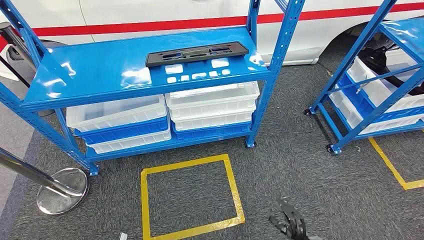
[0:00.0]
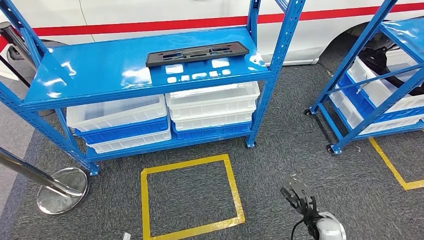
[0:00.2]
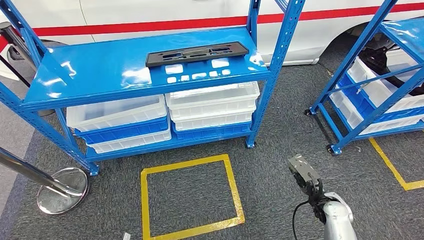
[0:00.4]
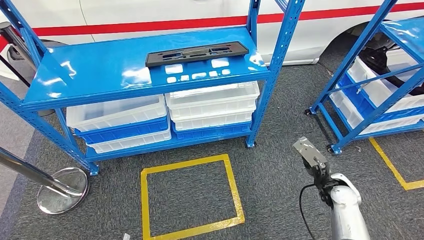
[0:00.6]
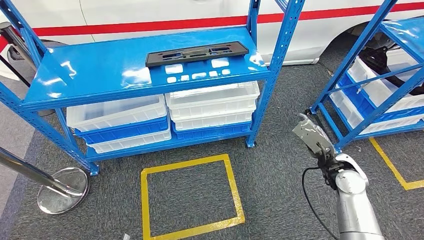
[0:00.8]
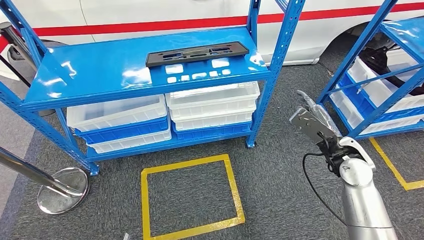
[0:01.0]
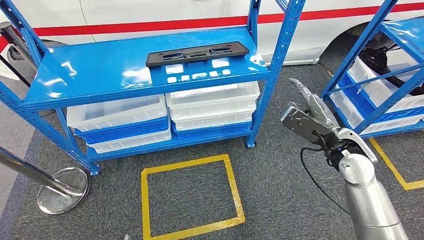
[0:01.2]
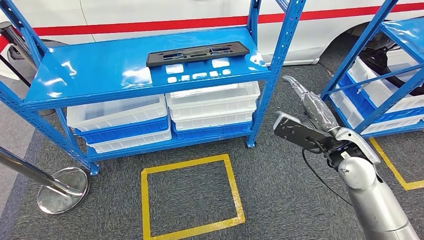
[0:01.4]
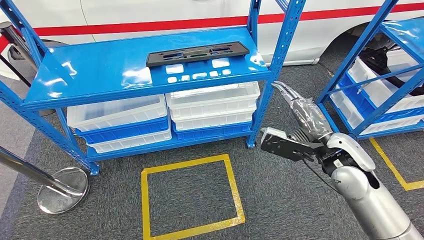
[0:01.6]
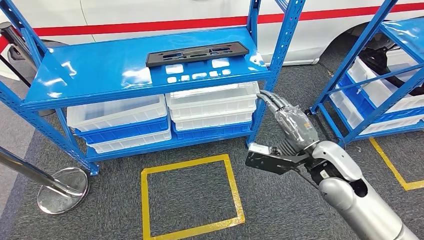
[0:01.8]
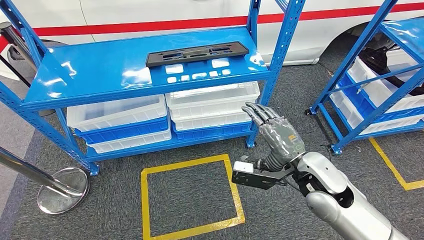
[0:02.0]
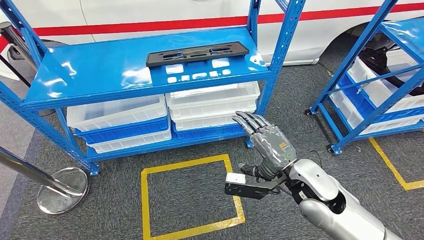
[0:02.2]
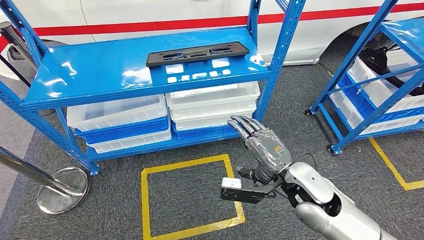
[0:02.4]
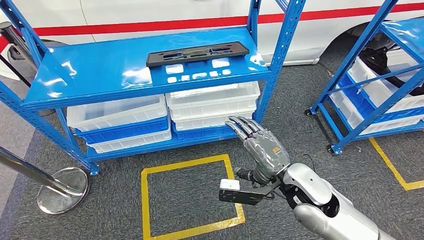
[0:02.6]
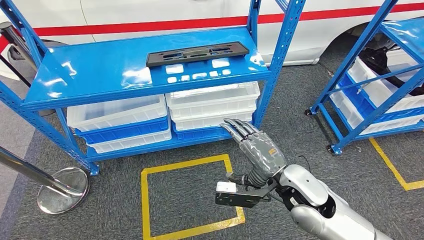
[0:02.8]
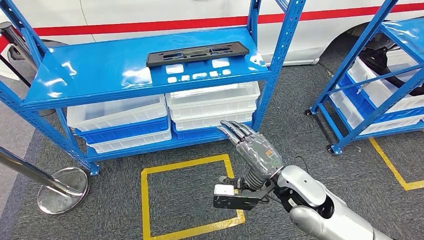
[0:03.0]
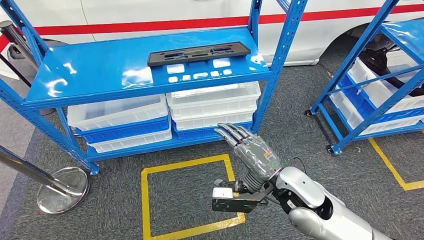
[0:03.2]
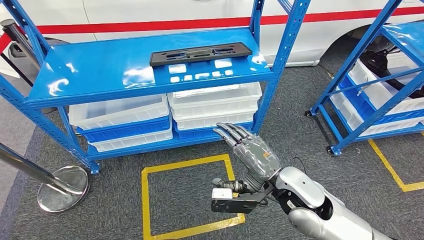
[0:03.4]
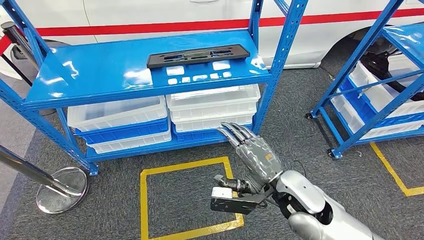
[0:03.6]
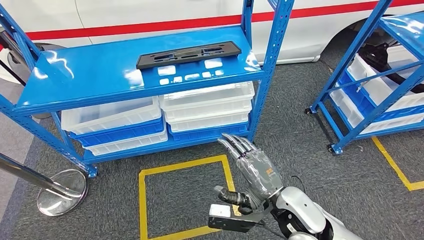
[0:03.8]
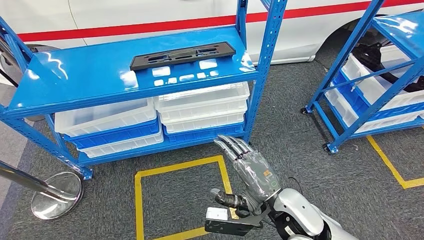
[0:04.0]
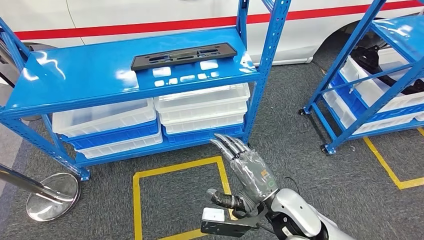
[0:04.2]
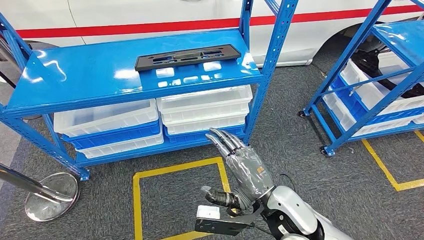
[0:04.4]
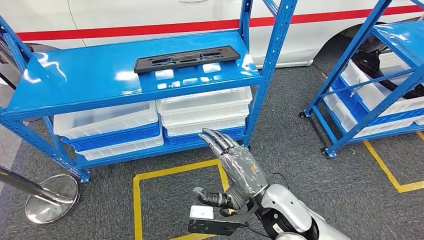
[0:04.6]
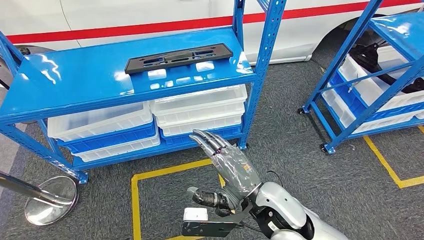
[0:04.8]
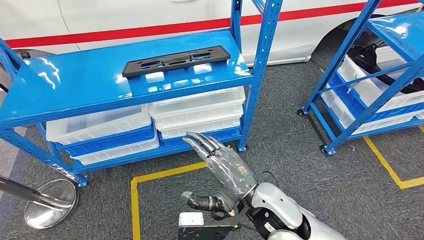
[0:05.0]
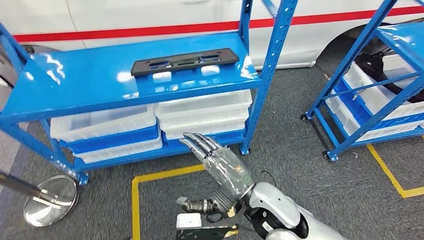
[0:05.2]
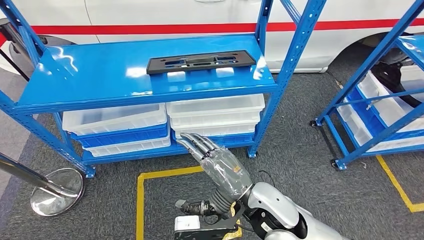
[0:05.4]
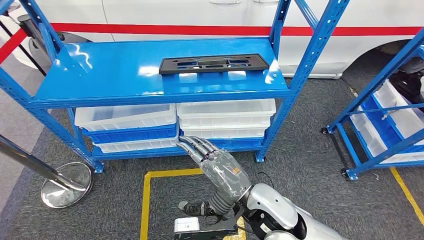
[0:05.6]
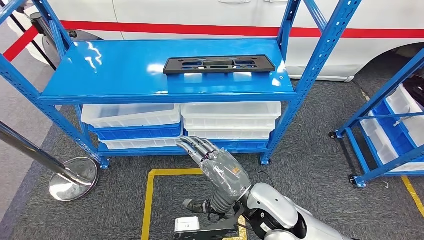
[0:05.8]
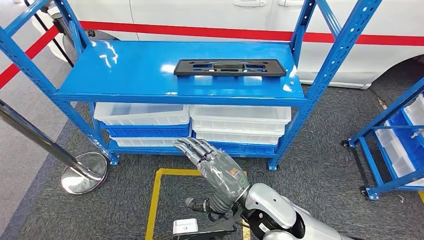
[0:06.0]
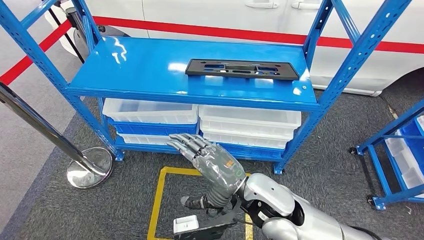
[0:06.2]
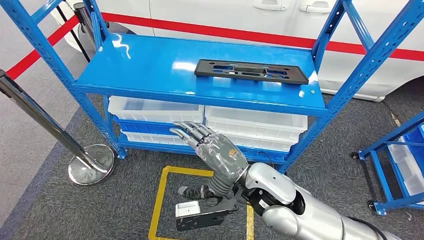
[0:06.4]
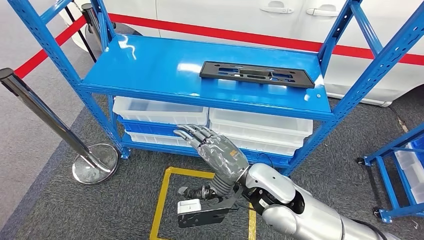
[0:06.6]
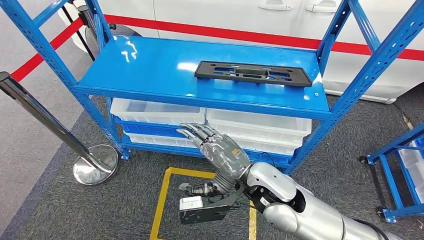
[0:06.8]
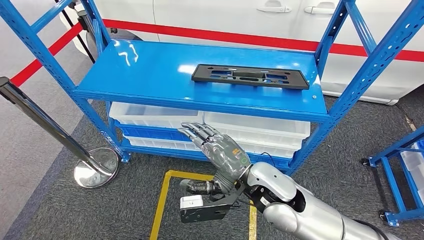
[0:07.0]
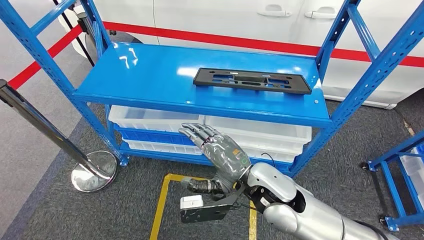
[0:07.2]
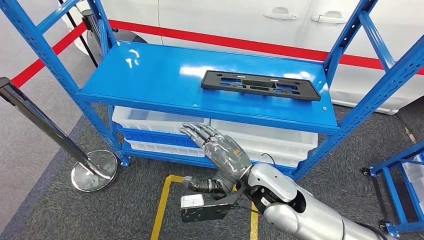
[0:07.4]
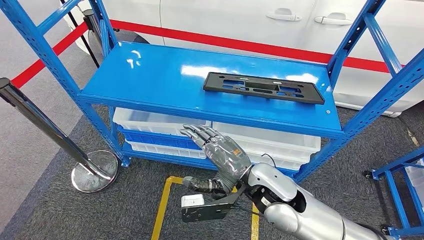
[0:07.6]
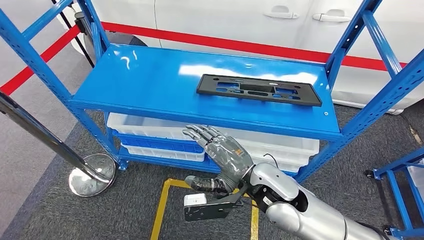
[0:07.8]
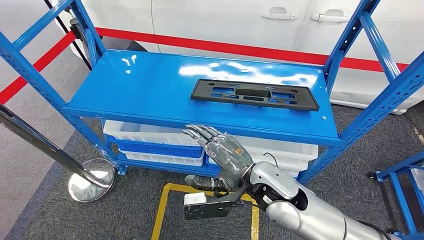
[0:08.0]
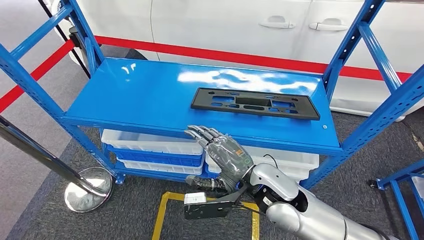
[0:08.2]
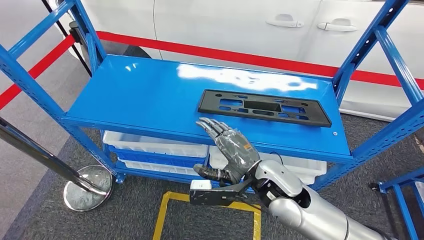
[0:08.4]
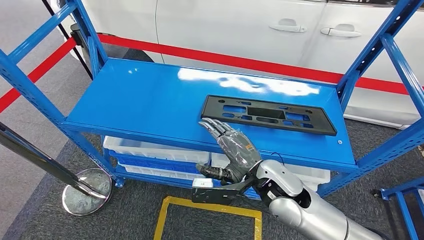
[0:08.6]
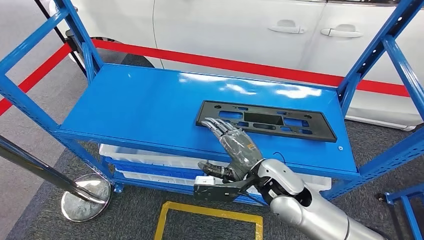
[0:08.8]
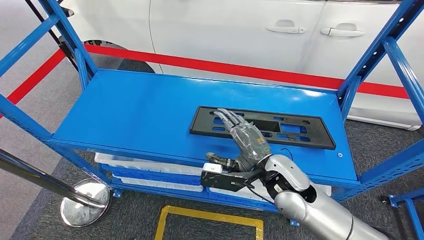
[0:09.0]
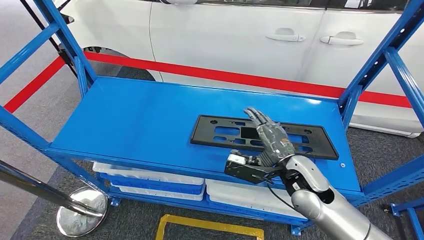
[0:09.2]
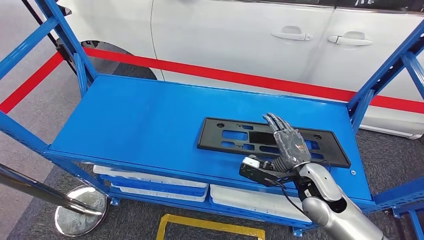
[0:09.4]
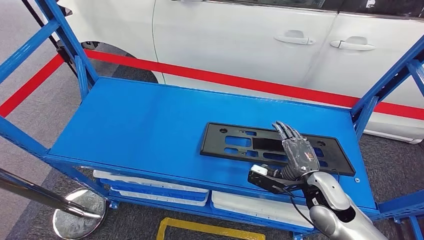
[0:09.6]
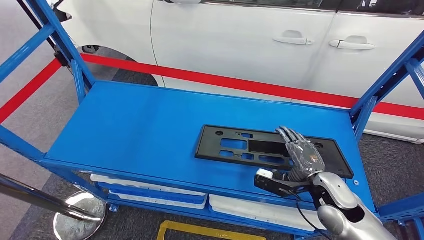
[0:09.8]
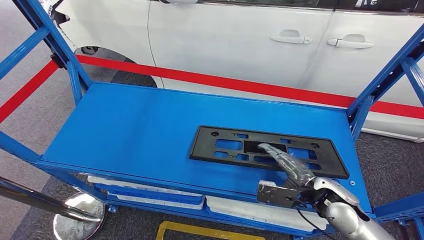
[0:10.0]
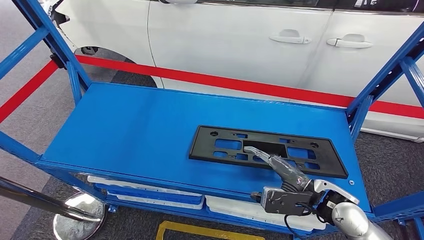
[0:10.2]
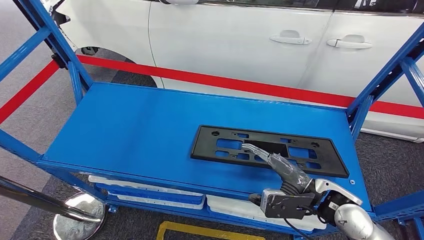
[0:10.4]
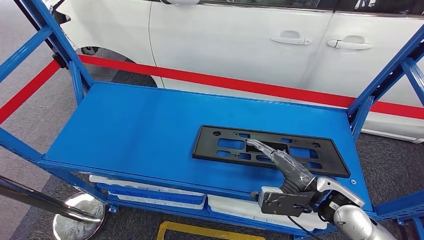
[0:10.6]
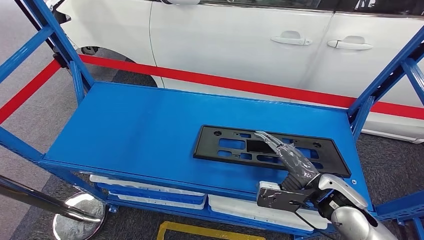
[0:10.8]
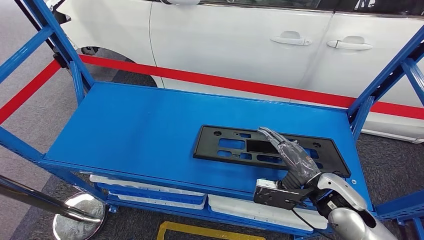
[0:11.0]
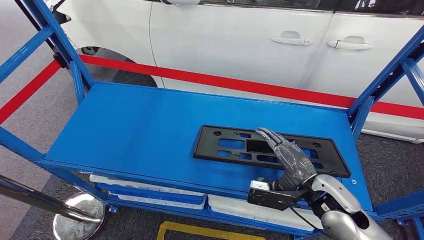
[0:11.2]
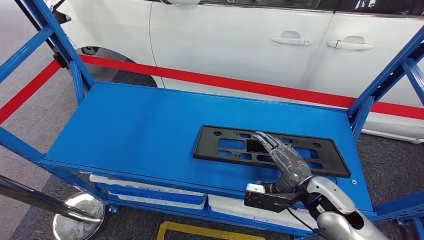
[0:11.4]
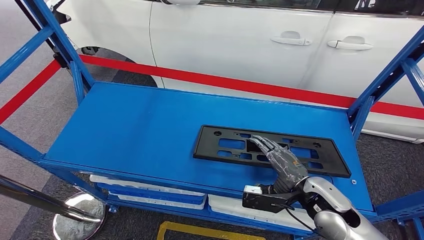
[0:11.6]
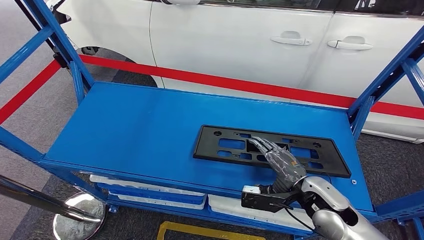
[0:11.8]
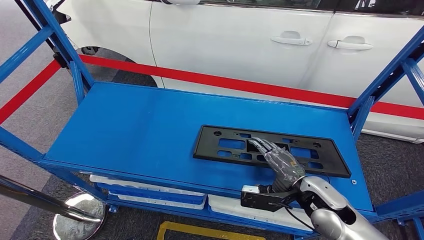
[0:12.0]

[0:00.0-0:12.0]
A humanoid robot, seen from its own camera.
0:01.6 to 0:03.0: The right hand moves to the left and downward, approximately 10 cm.

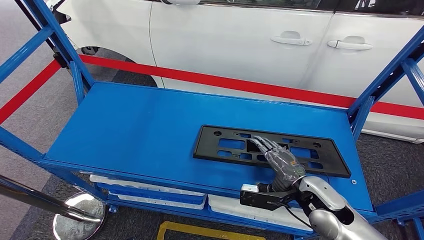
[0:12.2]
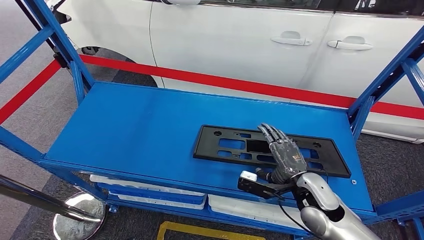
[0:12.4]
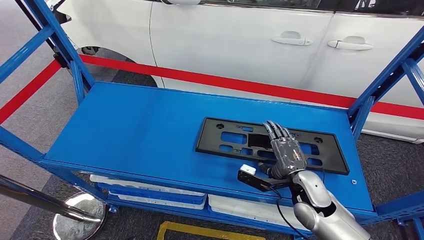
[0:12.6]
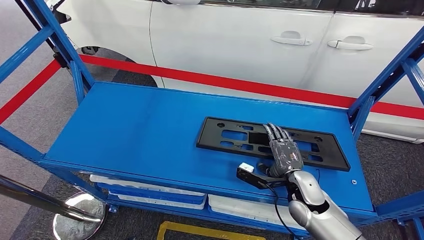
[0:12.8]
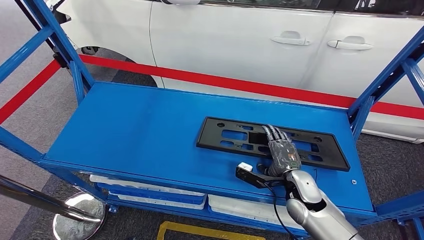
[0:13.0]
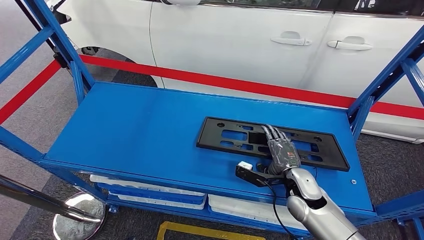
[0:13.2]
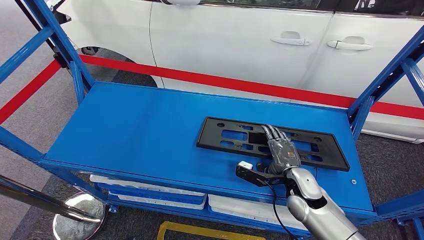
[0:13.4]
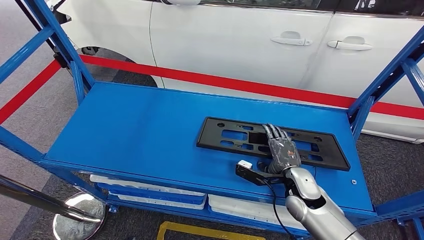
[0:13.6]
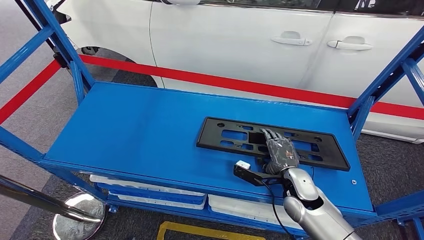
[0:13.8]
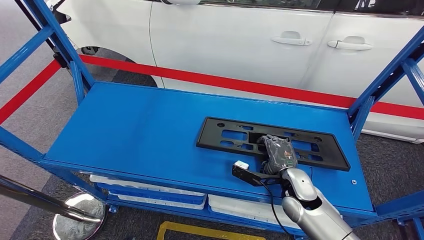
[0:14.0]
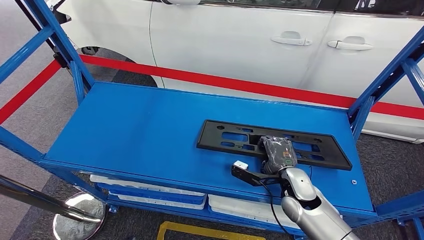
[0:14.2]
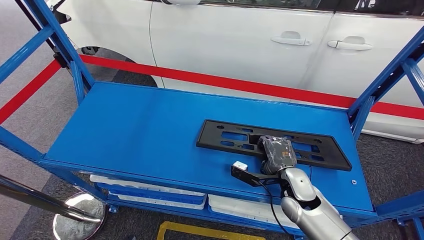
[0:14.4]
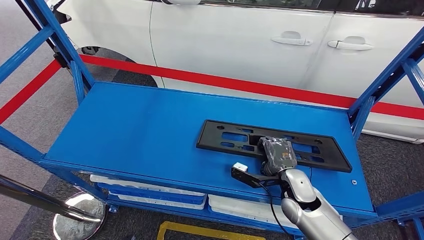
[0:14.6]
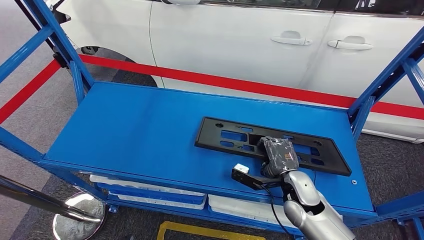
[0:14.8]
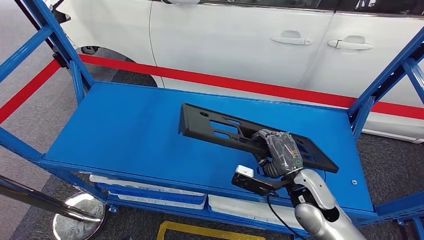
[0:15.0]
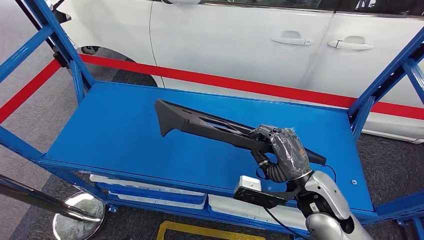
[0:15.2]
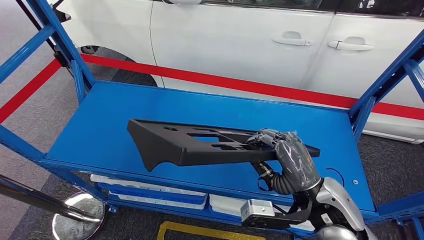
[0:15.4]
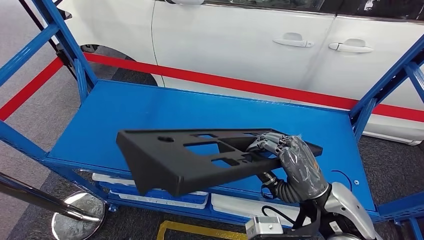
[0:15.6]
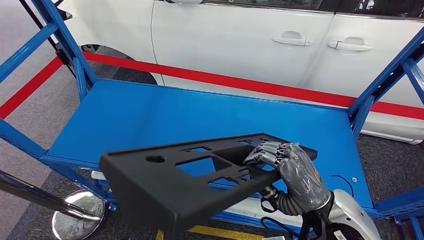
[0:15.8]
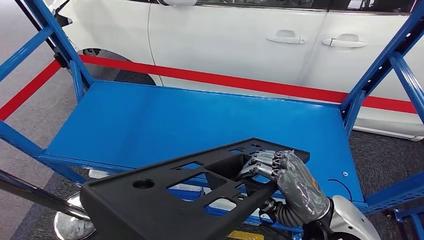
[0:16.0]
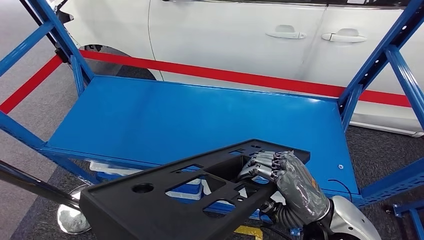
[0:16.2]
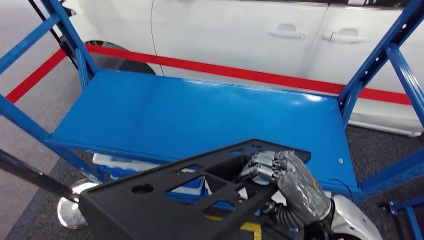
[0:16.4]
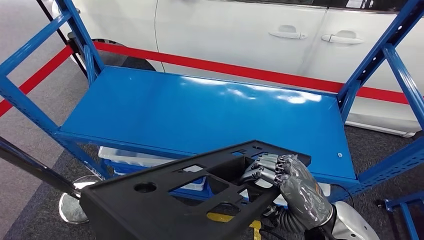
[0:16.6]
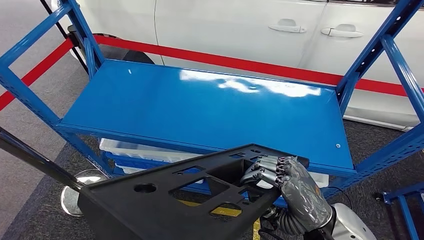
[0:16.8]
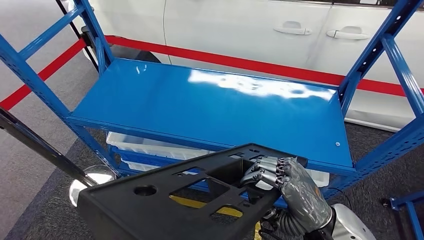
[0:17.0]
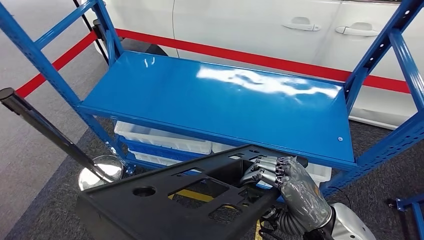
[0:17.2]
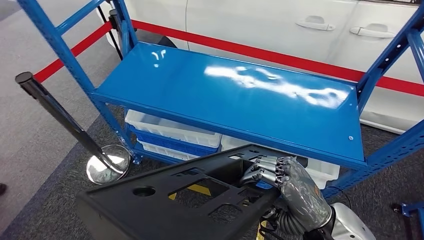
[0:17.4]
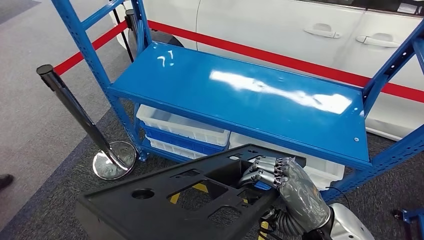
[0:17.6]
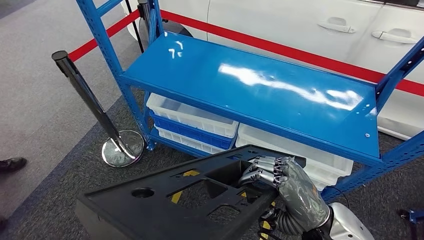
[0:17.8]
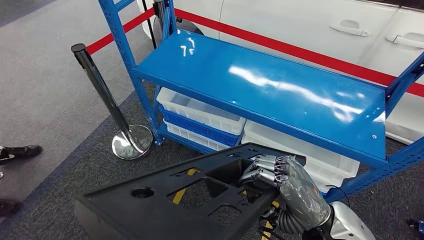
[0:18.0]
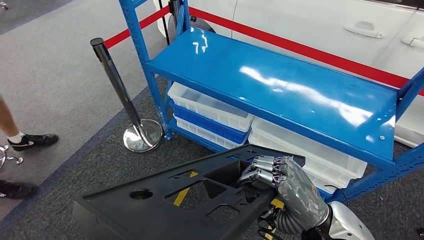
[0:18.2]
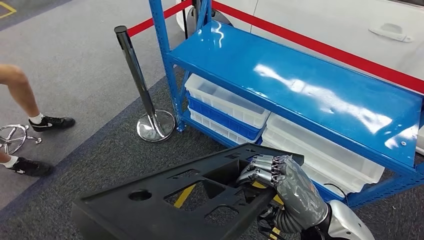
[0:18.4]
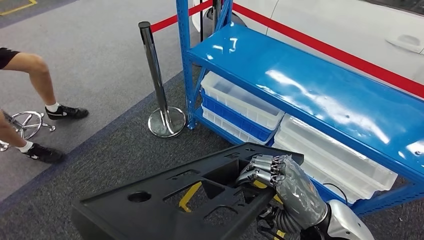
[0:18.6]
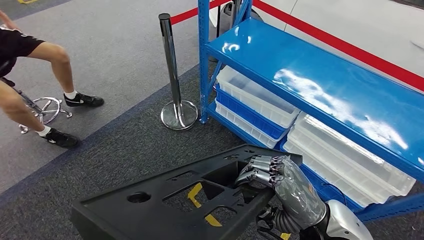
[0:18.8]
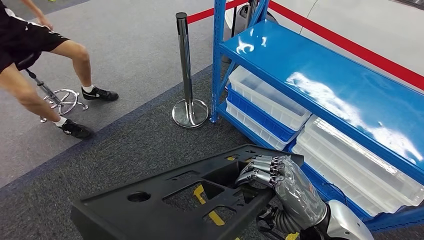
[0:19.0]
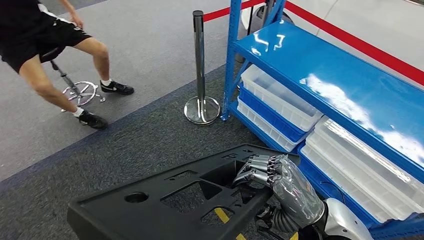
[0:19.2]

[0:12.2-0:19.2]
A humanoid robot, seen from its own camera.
Step, 0:12.2 to 0:15.6: Pick up the large material from the shelf.
0:12.2 to 0:13.6: The right hand heads downward, covering roughly 5 cm.
0:13.6 to 0:15.0: The right hand goes about 5 cm upward.
